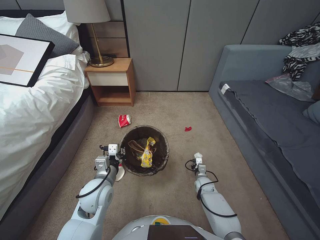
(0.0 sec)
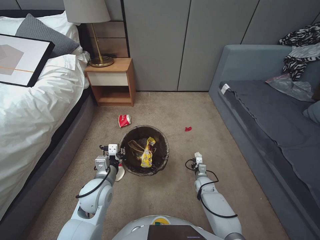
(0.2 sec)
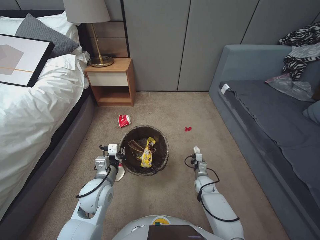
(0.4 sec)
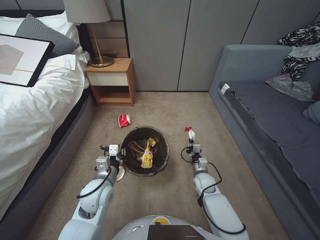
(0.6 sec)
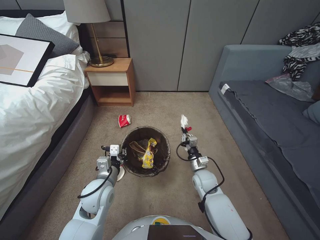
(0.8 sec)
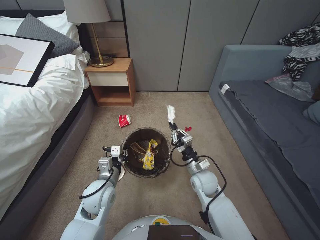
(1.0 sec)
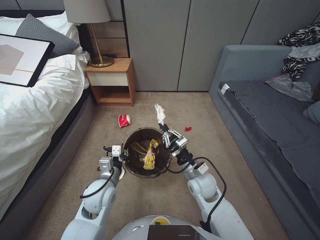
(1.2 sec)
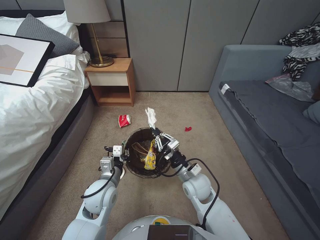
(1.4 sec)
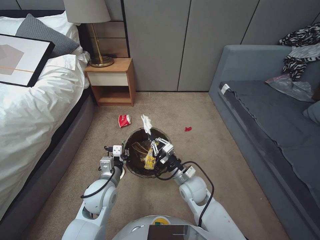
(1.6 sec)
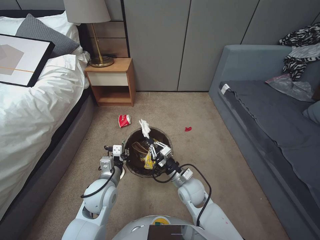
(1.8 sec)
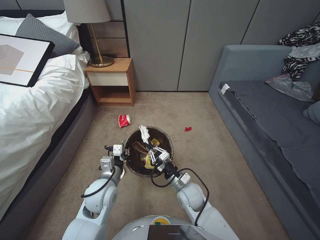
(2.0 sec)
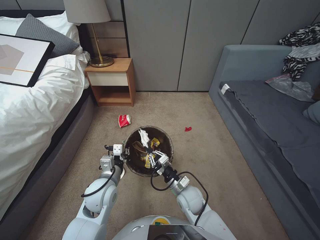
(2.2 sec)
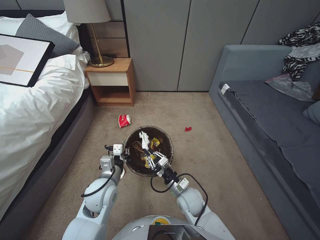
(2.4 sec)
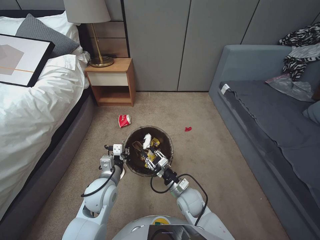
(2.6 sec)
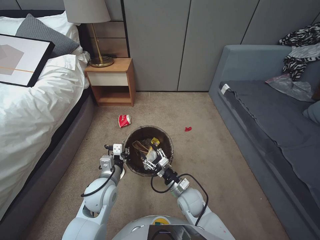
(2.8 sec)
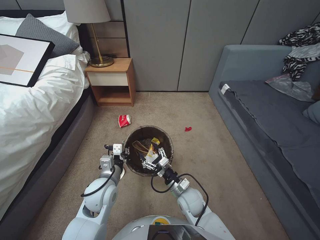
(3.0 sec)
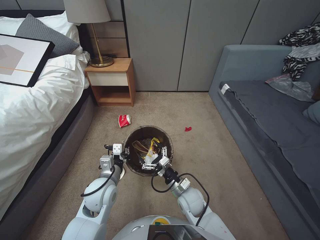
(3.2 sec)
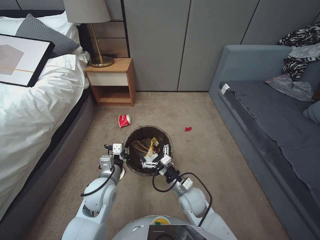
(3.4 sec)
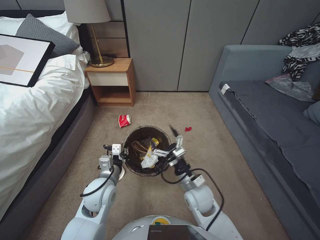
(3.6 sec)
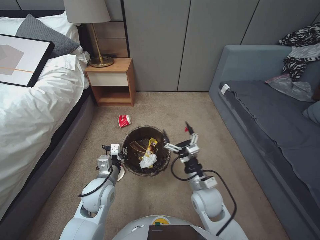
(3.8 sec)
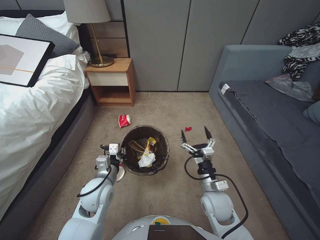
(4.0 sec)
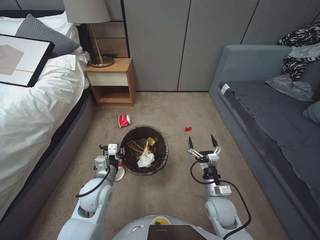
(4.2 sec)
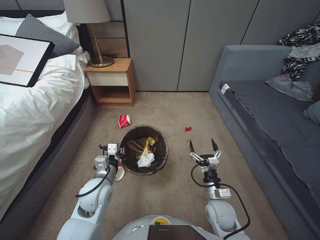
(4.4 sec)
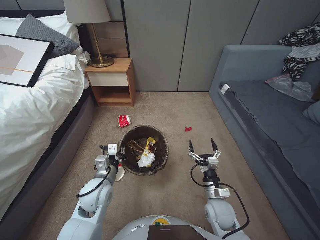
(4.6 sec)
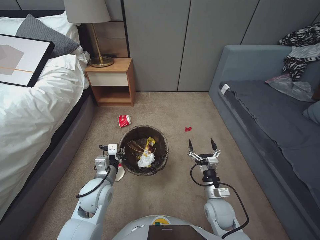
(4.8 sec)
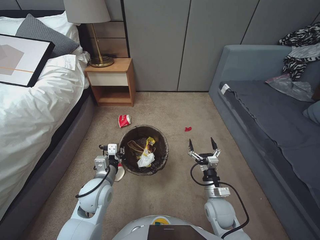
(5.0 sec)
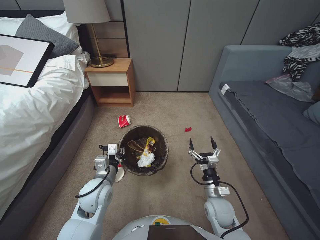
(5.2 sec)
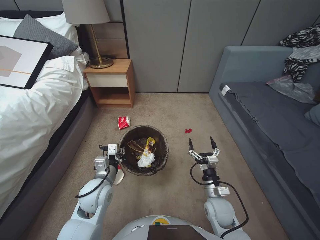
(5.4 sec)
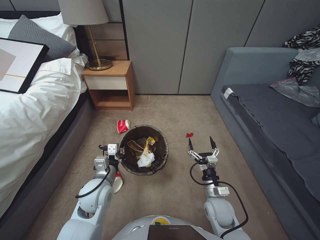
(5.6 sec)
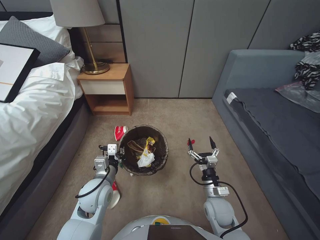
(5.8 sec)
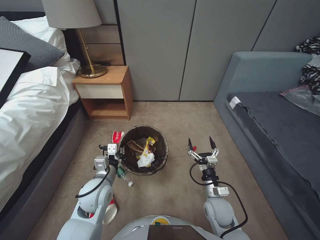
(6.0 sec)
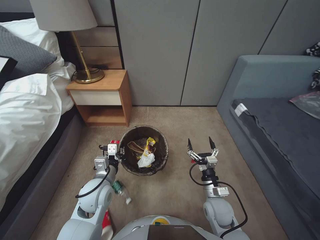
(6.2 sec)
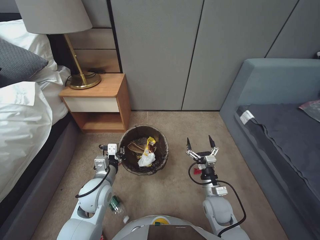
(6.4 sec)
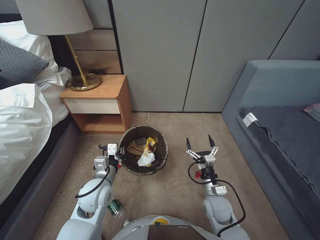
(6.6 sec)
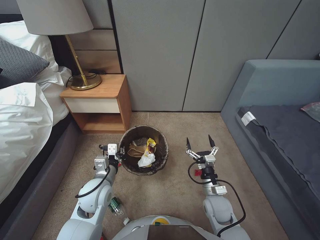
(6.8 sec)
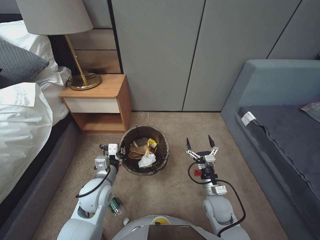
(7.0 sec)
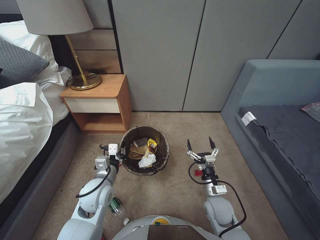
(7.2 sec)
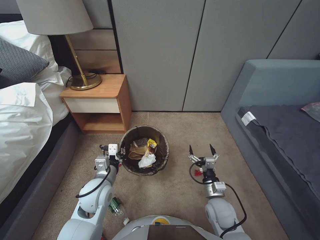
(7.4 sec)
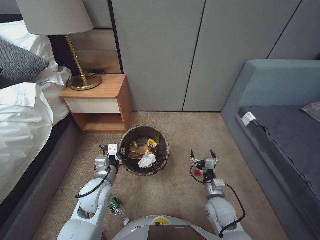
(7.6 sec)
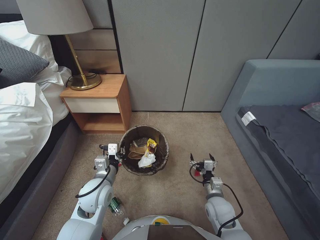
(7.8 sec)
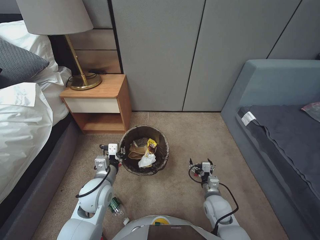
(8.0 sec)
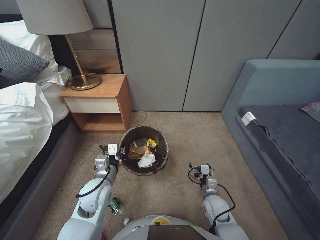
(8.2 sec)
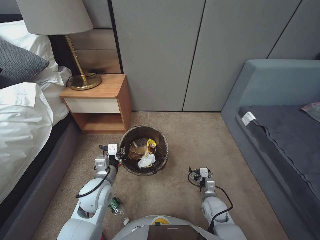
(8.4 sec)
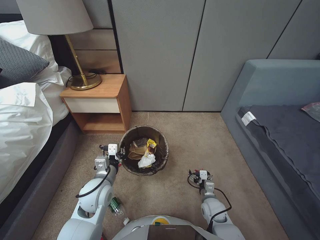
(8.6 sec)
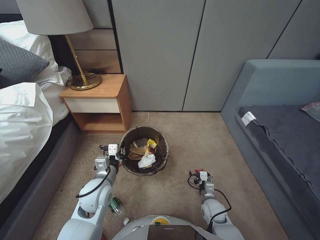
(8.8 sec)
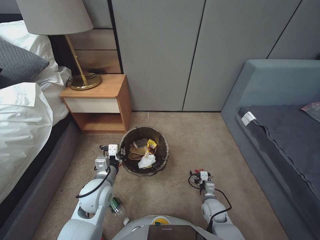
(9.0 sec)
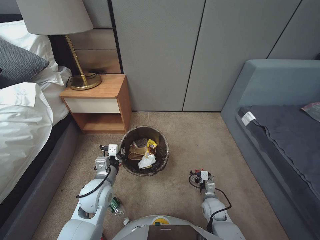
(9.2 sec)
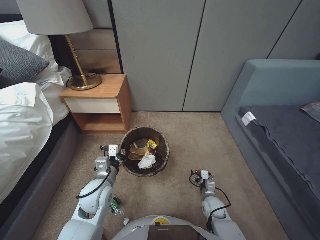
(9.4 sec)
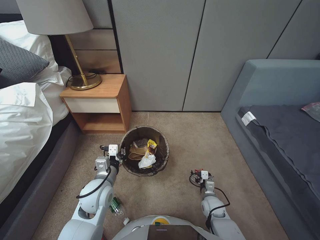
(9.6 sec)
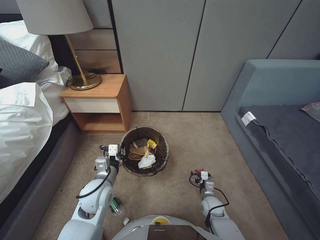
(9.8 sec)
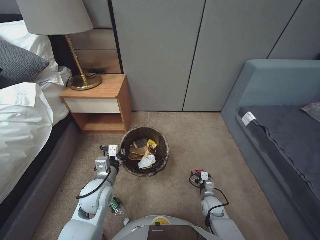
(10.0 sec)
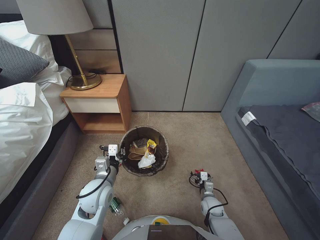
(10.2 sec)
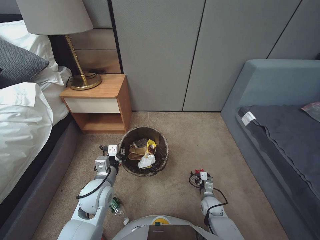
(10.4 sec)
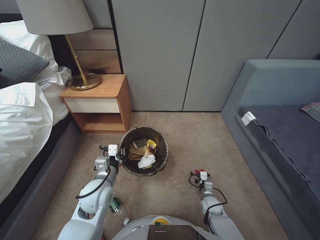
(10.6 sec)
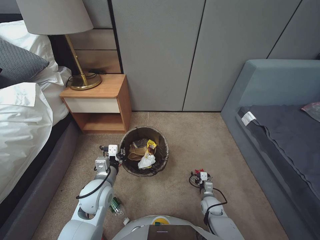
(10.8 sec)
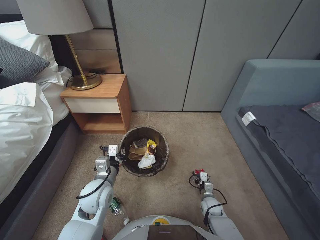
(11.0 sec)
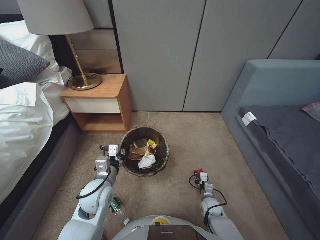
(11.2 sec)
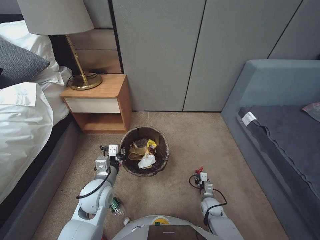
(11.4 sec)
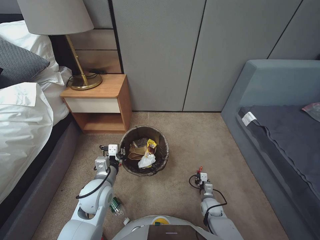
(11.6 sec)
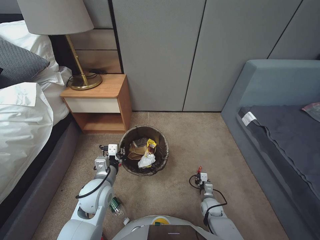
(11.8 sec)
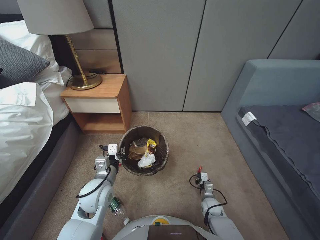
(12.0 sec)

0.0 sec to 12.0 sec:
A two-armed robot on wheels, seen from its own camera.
Task of the whole recording: Pick up the trash bin, then pick up the garbage from the floor and place it into the trash bin.
0.0 sec to 1.6 sec: The right gripper travels upward and to the left by roughly 25 cm.
1.6 sec to 3.0 sec: The right gripper goes about 10 cm downward, and opens up.
3.0 sec to 4.4 sec: The right gripper heads to the right and upward, covering roughly 10 cm.
4.4 sec to 6.0 sec: The right gripper moves downward, roughly 5 cm.
7.6 sec to 9.0 sec: The right gripper goes some 10 cm downward.
9.0 sec to 10.4 sec: The right gripper heads downward, covering roughly 5 cm.

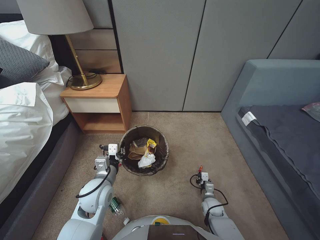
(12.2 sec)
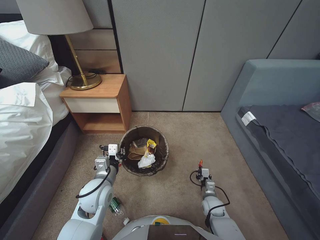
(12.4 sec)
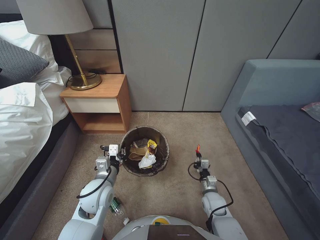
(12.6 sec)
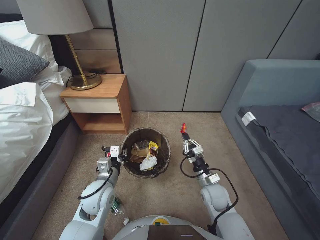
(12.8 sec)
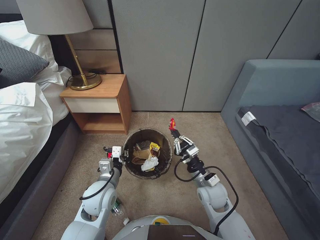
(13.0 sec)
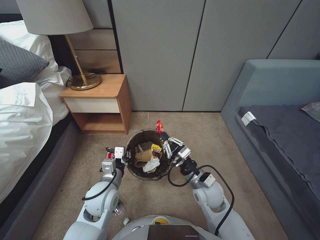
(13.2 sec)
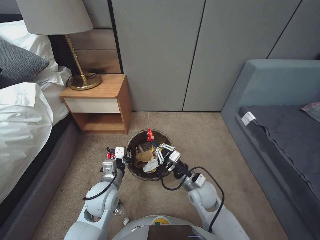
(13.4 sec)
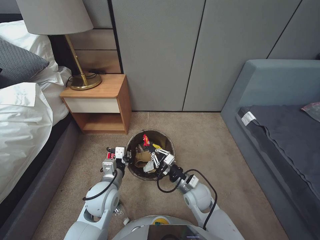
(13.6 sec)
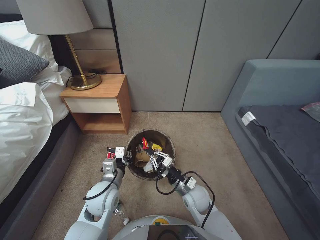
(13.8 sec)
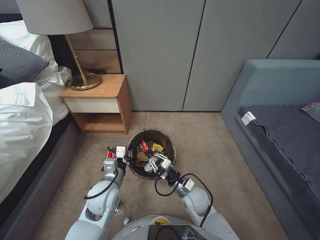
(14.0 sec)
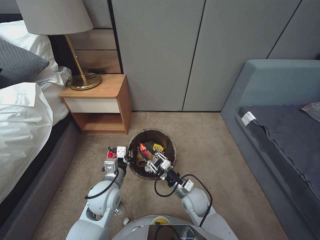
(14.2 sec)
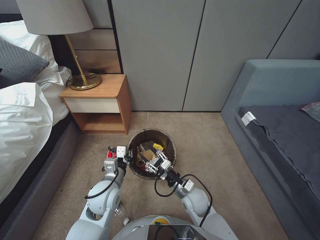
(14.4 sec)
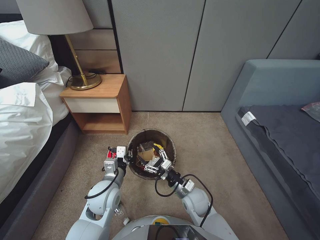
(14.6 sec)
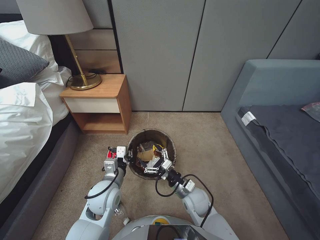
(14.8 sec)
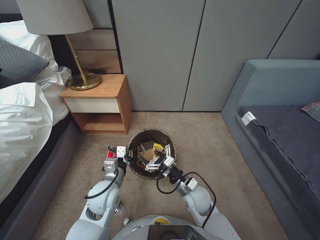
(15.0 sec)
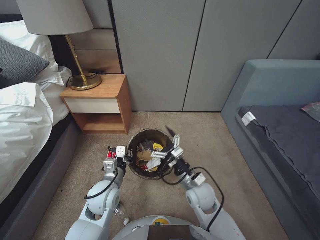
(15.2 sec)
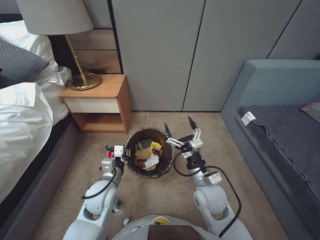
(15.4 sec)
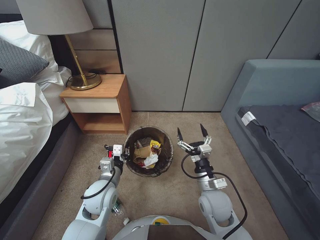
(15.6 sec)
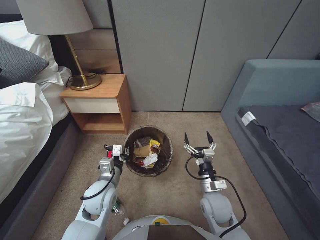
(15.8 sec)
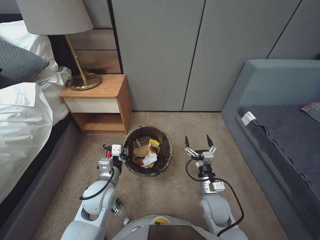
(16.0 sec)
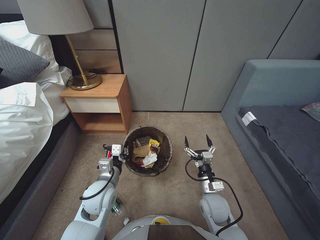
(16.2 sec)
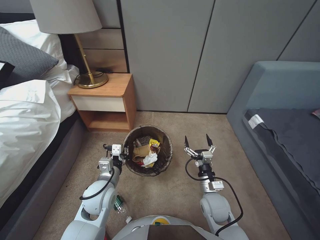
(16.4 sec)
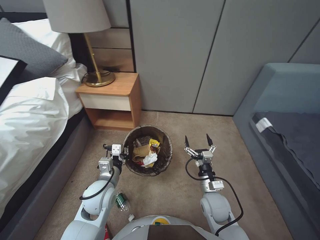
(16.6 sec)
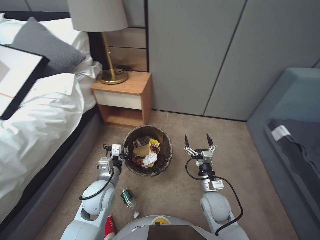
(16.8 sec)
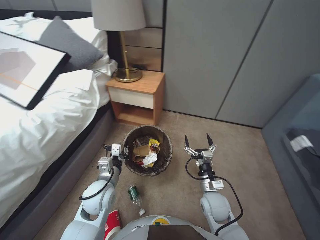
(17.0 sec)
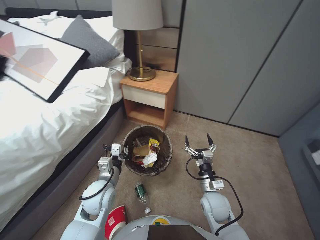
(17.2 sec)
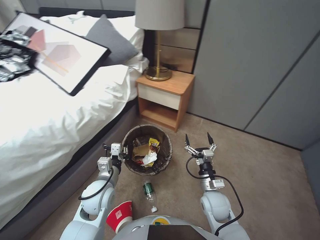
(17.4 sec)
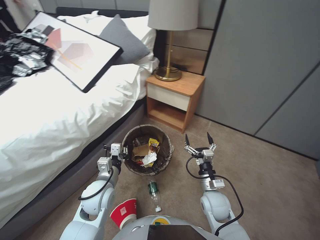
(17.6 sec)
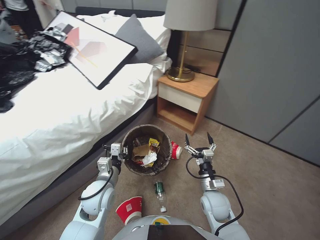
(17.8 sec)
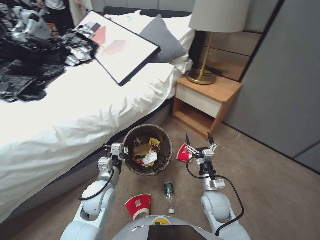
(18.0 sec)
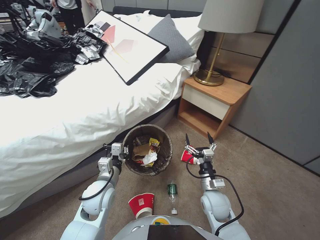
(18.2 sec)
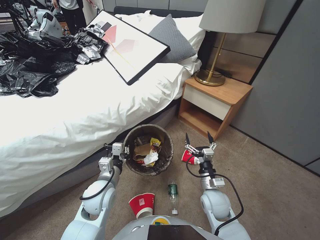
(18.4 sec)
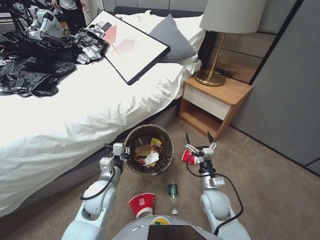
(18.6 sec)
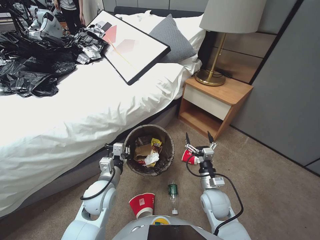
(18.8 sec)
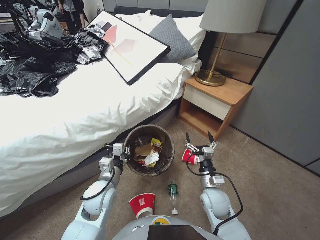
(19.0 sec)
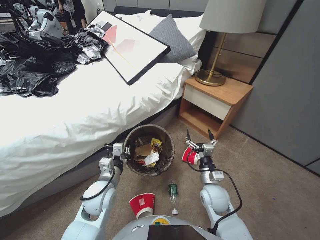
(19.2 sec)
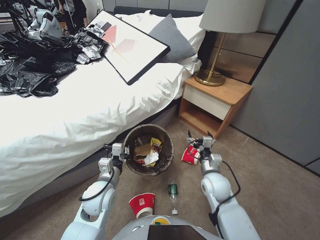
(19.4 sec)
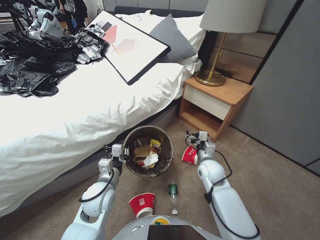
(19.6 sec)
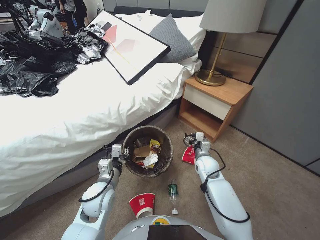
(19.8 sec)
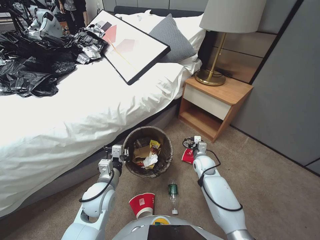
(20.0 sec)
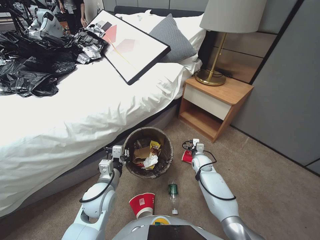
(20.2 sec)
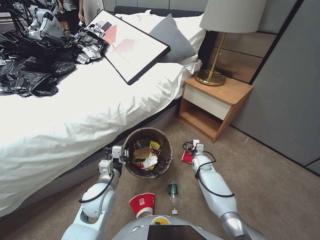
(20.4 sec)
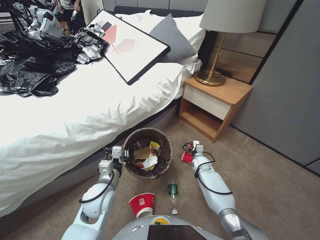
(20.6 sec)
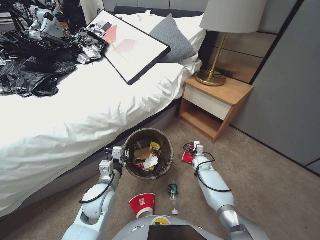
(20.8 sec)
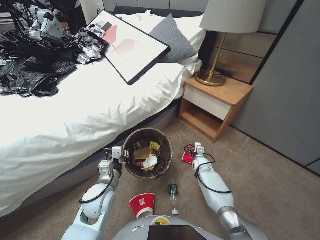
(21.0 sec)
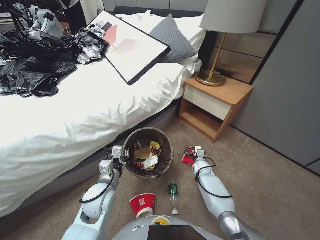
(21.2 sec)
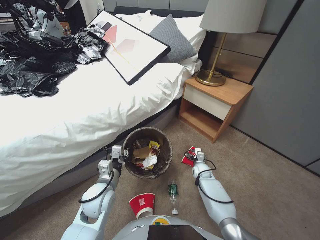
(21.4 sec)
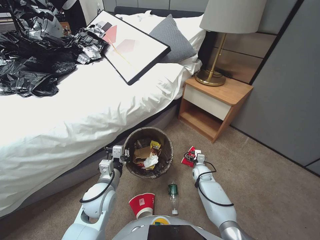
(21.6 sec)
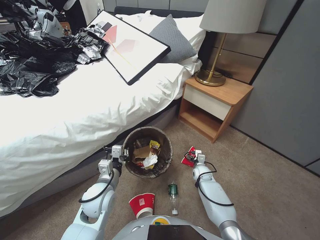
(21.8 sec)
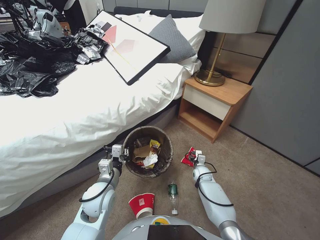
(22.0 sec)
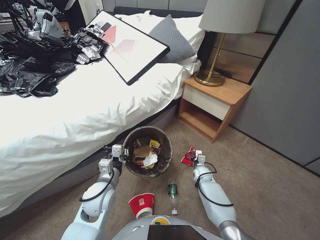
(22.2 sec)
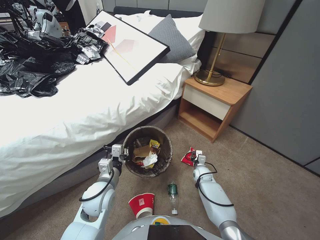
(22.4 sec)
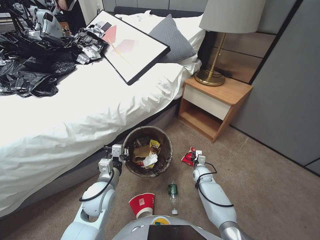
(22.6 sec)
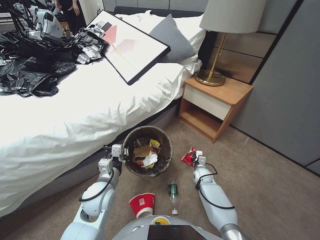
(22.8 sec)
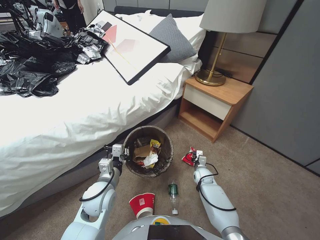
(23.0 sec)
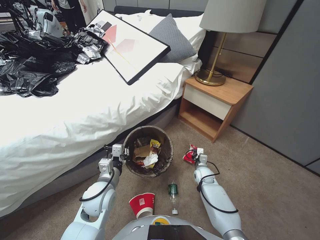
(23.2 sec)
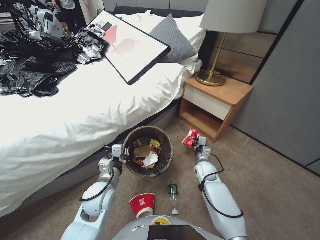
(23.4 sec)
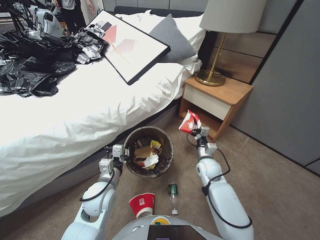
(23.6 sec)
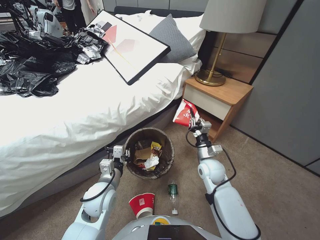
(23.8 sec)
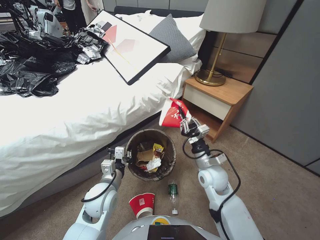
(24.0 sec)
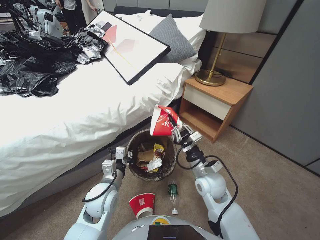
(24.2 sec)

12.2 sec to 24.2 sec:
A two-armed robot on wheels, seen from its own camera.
Task of the whole recording: Pick up the trash bin, then pick up the garbage from the floor and place it into the trash bin.
12.2 sec to 13.8 sec: The right gripper moves upward and to the left, some 25 cm.
13.8 sec to 15.2 sec: The right gripper opens.
15.2 sec to 16.6 sec: The right gripper shifts some 5 cm to the right, and reaches roughly 10 cm upward, then returns.
18.2 sec to 19.8 sec: The right gripper heads forward, covering approximately 15 cm.
19.8 sec to 21.2 sec: The right gripper heads downward and forward, covering about 15 cm.
21.2 sec to 22.6 sec: The right gripper travels backward by approximately 5 cm, and closes up.
22.6 sec to 24.2 sec: The right gripper travels upward by about 20 cm.
